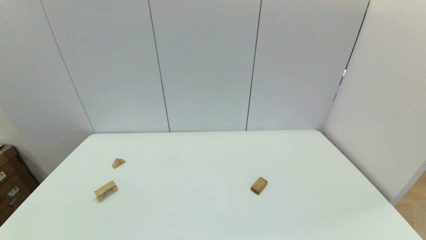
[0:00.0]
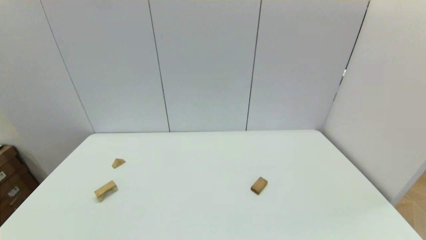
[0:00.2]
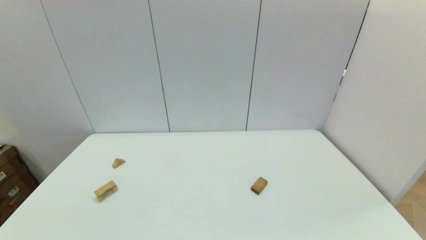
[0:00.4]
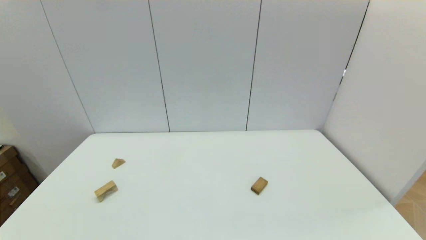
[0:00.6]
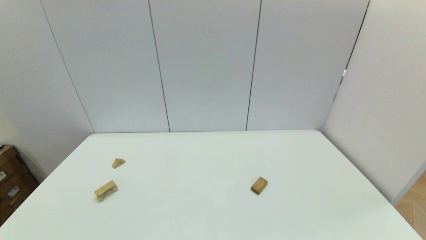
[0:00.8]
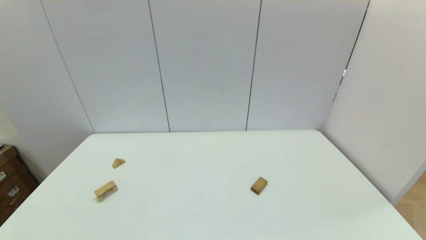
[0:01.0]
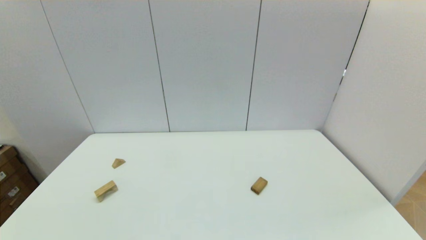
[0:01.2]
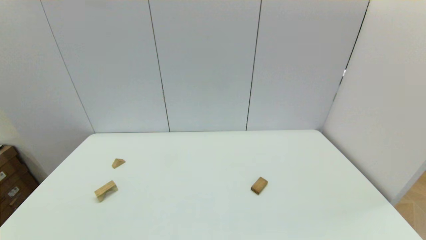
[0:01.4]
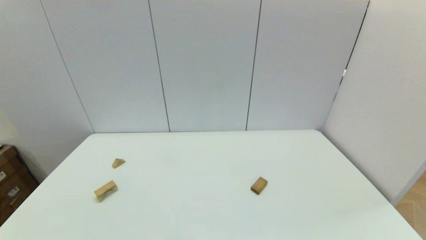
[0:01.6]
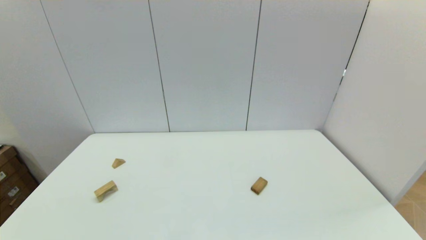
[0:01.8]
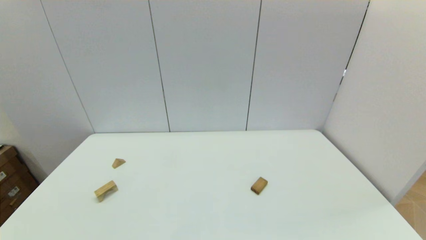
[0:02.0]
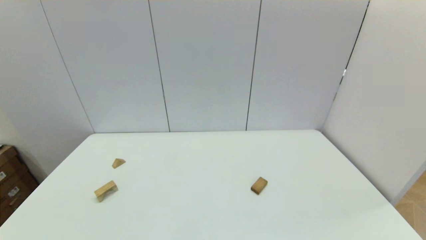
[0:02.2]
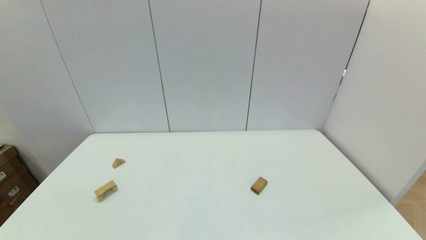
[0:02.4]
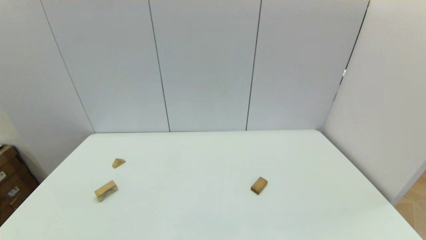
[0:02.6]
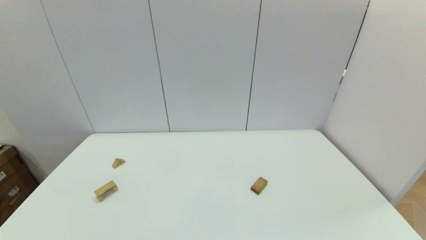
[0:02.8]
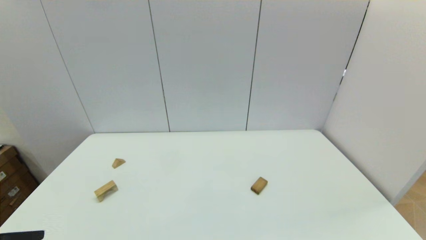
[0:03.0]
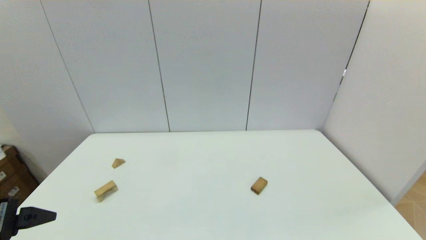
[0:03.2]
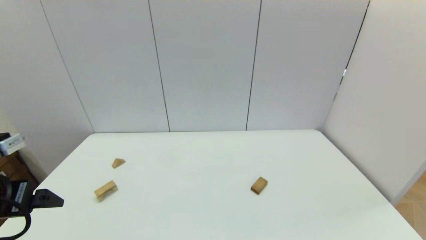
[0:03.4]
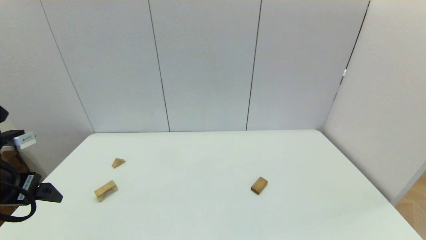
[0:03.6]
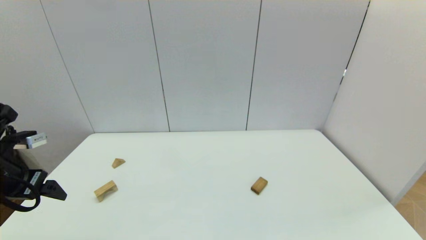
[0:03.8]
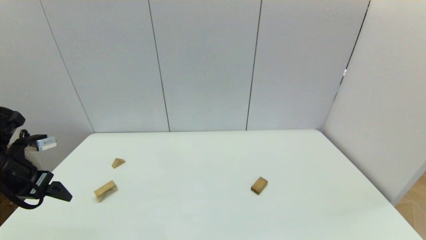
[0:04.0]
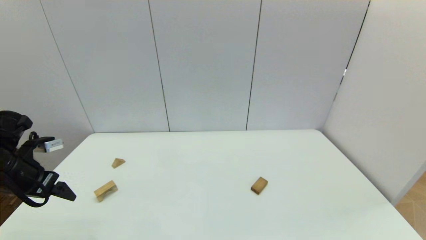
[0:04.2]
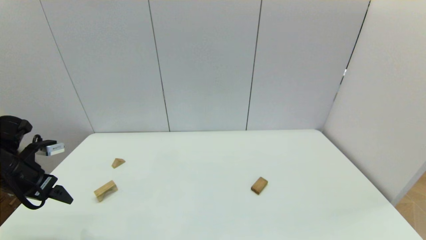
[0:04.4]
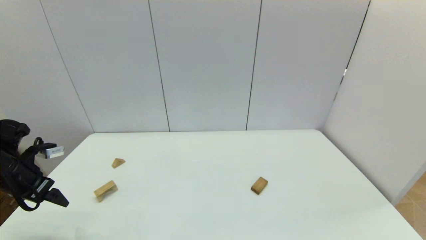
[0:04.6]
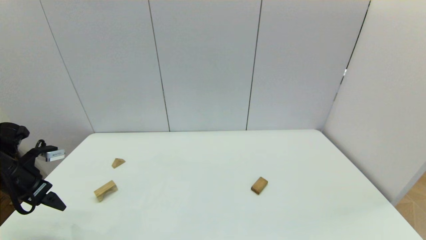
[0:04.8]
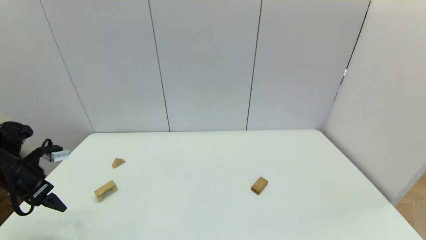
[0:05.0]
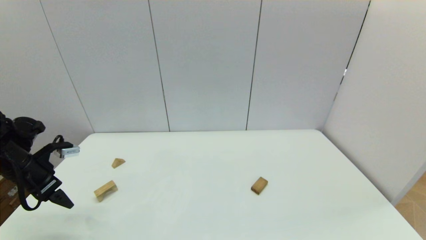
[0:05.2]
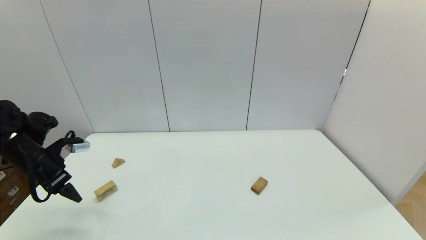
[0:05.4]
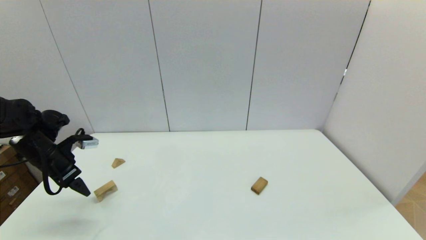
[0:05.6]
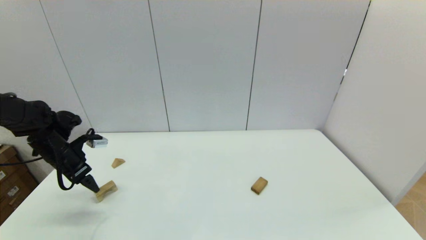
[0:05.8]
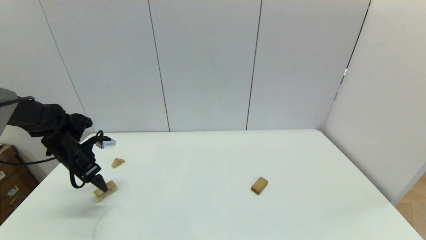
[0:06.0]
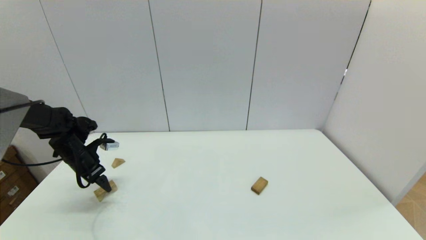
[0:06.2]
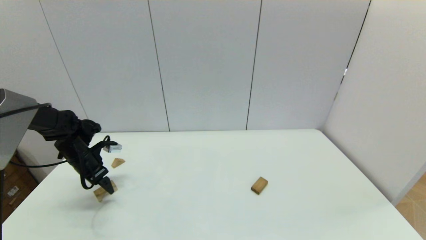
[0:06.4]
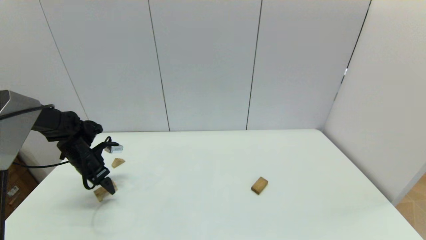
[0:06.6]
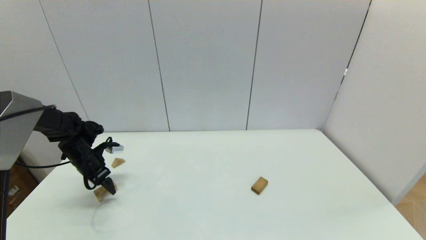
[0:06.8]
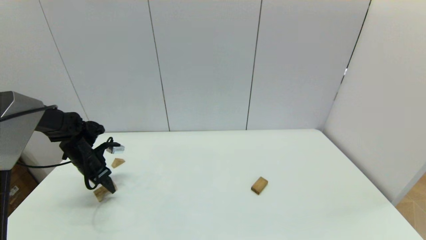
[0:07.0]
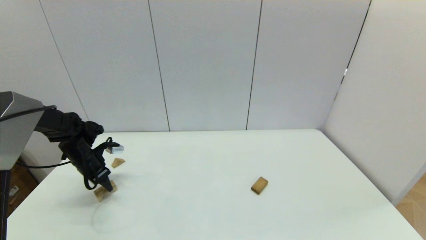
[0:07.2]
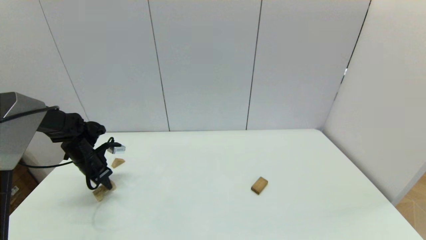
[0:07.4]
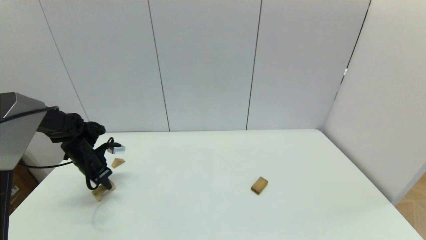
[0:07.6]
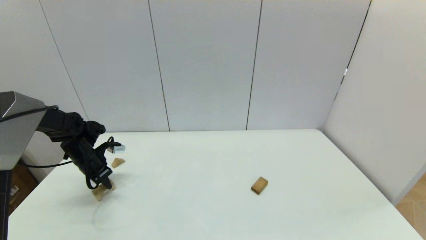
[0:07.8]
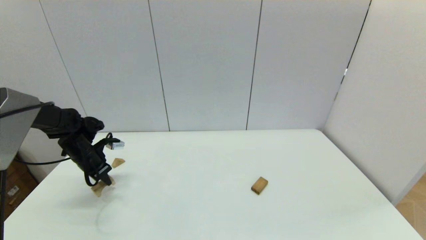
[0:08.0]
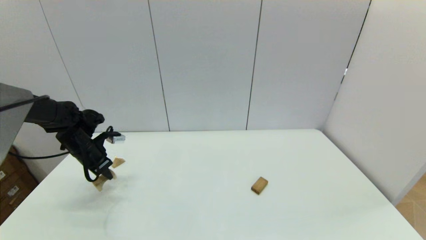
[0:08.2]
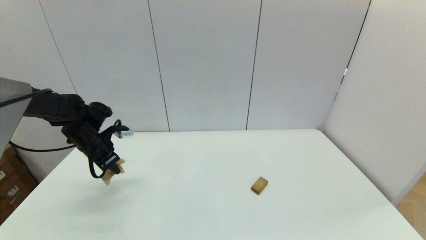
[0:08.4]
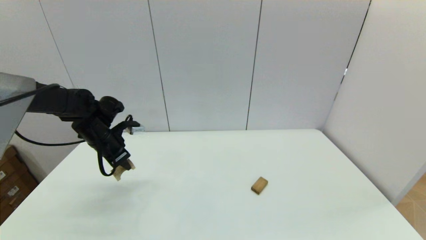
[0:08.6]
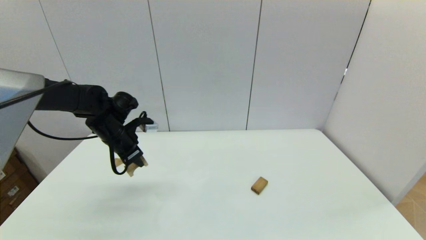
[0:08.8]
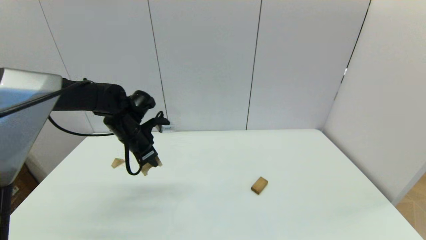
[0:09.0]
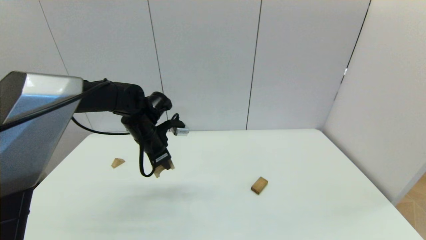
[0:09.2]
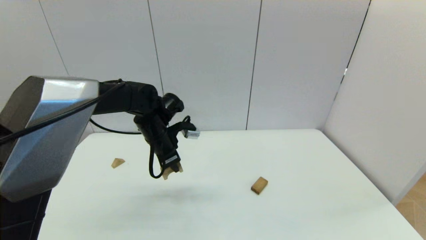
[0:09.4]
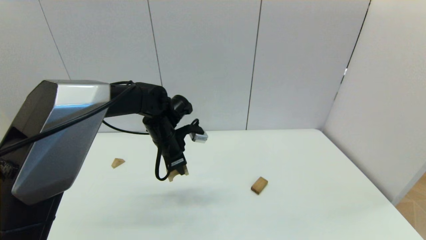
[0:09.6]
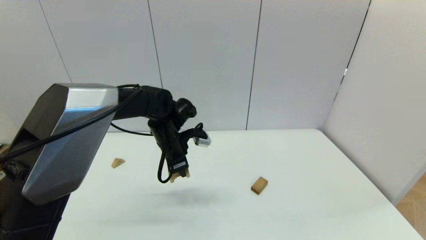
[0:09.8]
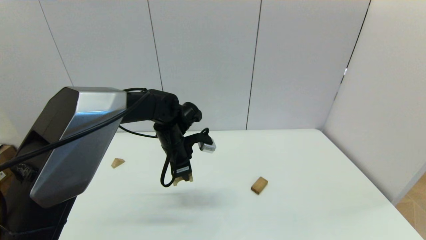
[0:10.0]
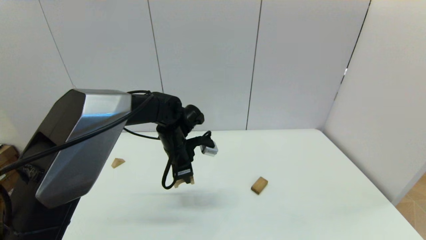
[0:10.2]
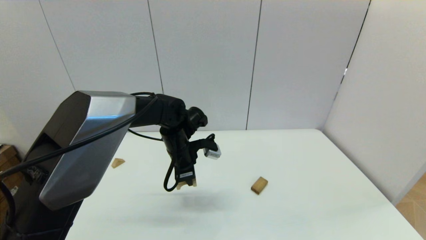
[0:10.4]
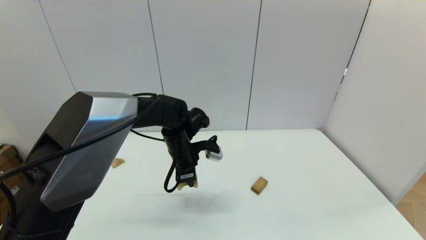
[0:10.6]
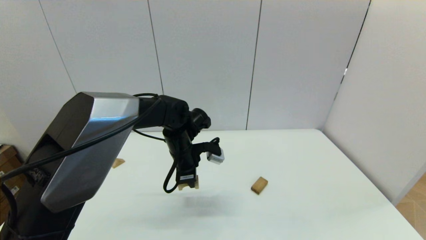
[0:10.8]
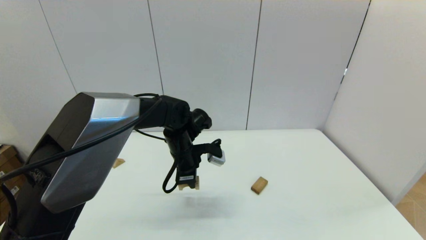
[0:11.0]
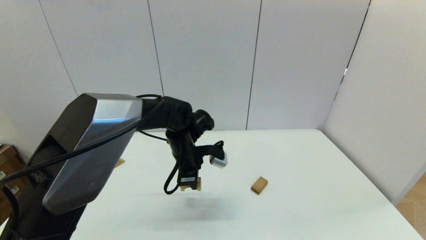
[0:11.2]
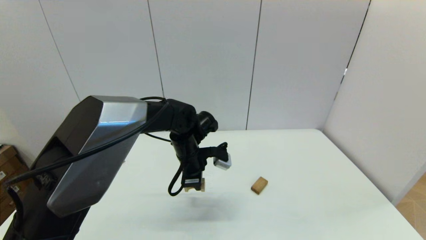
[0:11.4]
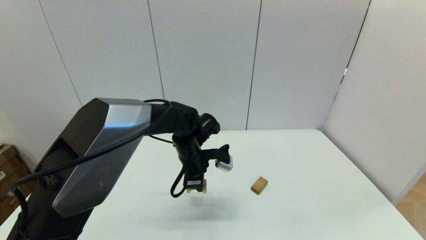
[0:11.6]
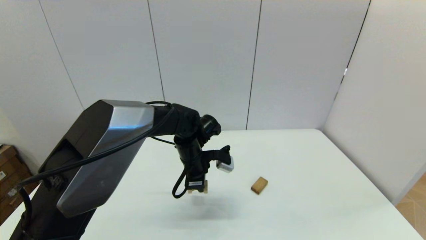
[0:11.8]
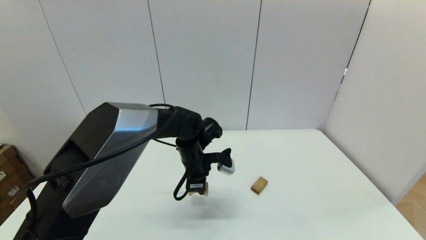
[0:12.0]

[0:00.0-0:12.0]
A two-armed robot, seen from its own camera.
Task of the whole recording: place the arched building blocks in the center of the table, set up the rectangular building blocks, and then set up the triangular building blocks.
Step, 0:03.0 to 0:07.2: Grasp the arch-shaped block with the left gripper.
0:03.0 to 0:04.4: The left gripper is displaced forward, to the left and downward by approximately 20 cm.
0:04.4 to 0:06.0: The left gripper goes about 15 cm forward and downward.
0:06.0 to 0:07.6: The left gripper closes.
0:07.6 to 0:09.0: The left gripper is displaced to the right and upward by roughly 20 cm.
0:09.0 to 0:10.4: The left gripper heads to the right, covering approximately 10 cm.
0:10.4 to 0:12.0: The grippers make only small movements.

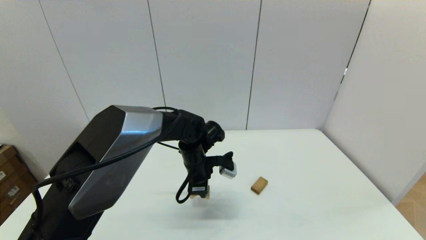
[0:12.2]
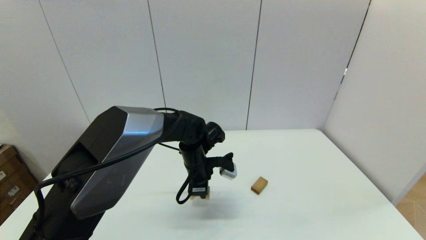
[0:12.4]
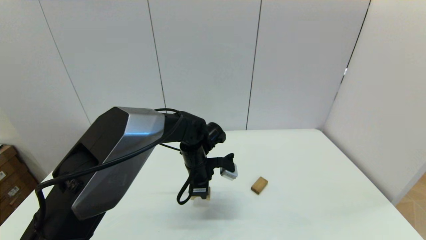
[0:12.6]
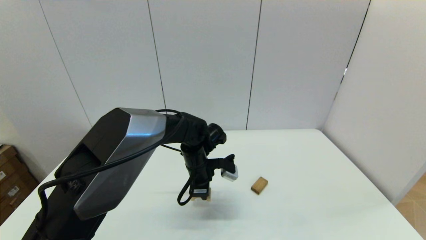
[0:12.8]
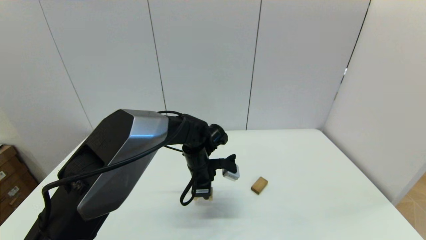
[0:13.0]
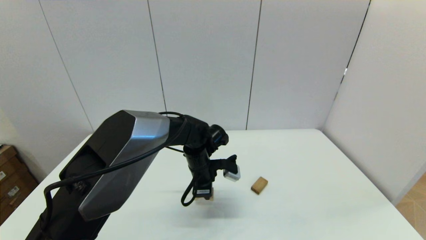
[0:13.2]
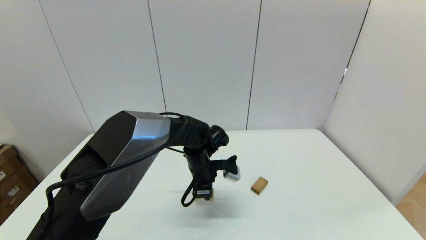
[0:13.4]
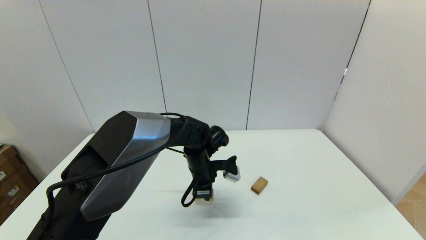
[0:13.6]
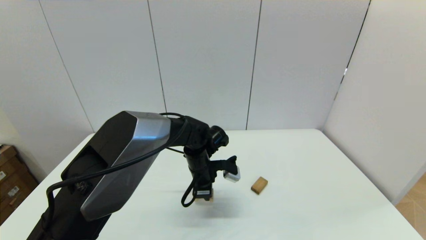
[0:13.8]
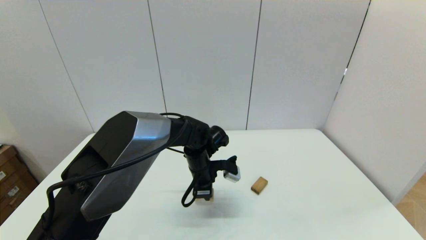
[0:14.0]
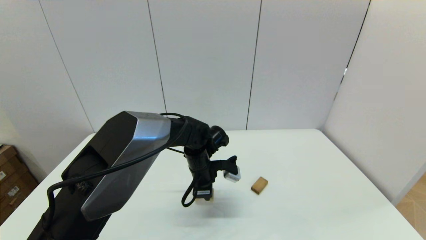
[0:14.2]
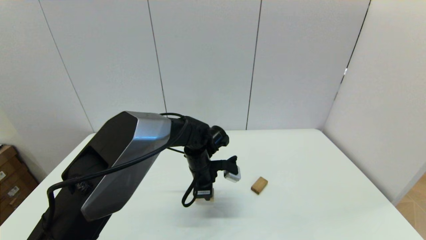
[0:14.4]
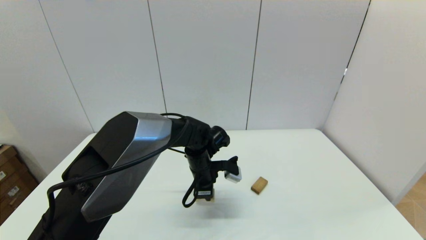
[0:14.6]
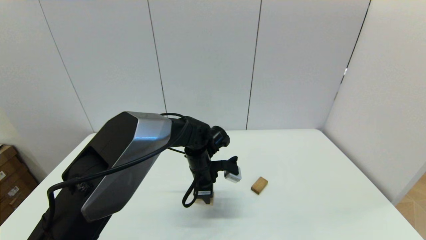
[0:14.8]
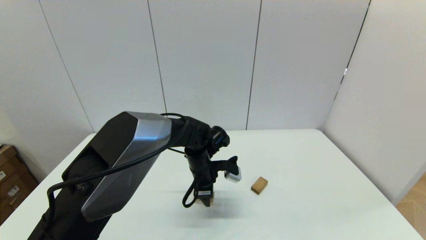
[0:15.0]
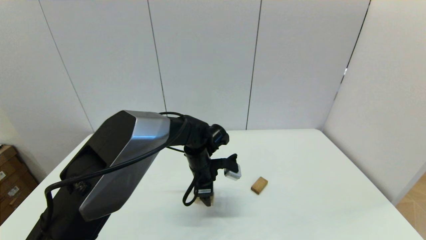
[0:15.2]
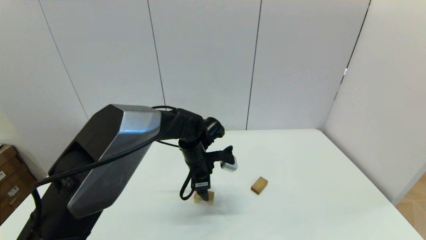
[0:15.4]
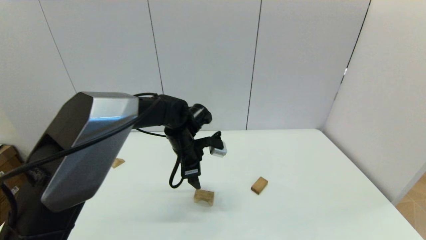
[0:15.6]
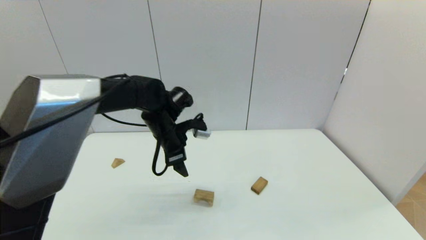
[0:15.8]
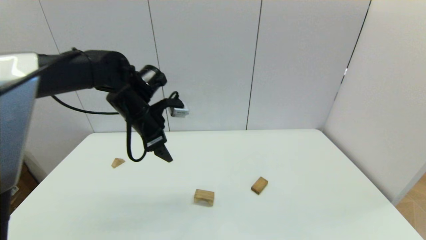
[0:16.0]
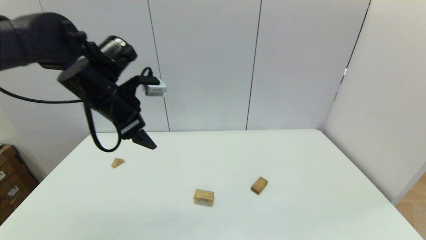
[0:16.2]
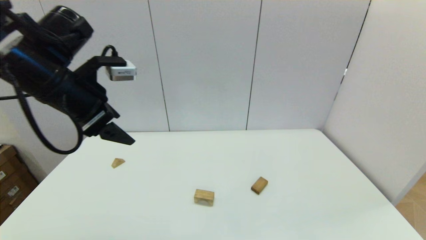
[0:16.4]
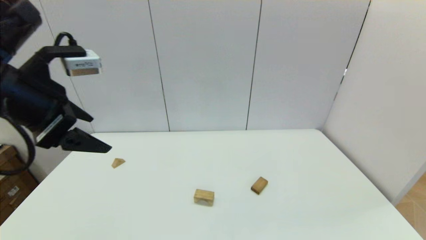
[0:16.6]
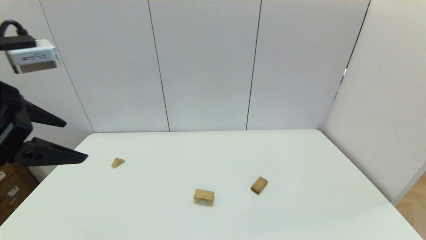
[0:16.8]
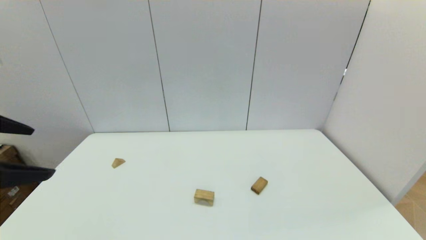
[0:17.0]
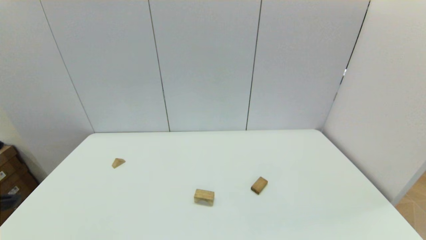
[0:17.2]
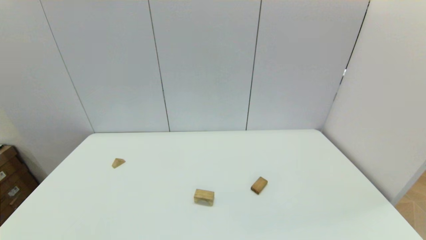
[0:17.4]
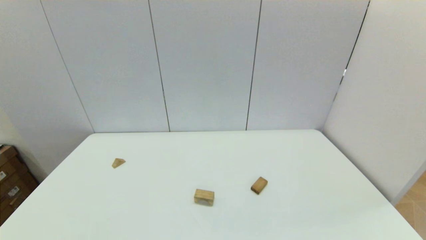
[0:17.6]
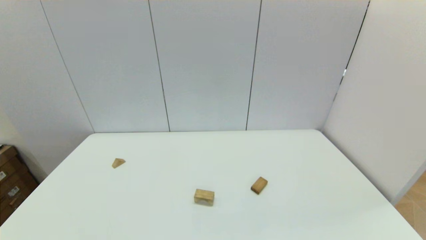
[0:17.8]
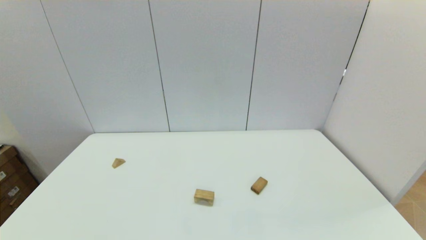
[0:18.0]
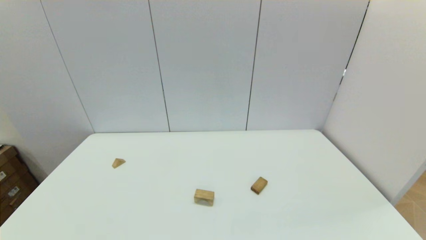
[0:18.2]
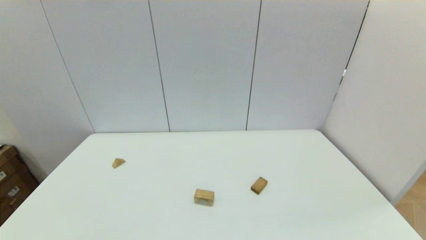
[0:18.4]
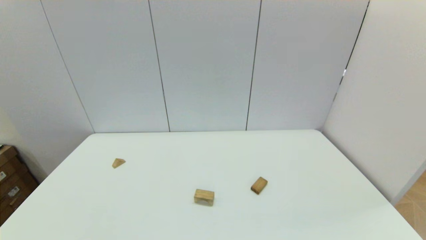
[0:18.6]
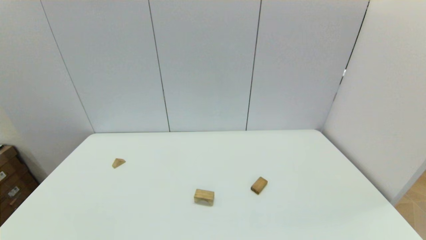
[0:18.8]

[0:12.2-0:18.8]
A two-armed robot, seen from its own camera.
Task of the whole recording: place the arched building blocks in the center of the table, set up the rectangular building blocks, and then set up the triangular building blocks.
Step, 0:12.2 to 0:15.2: Place the arch-shaped block in the center of view with the left gripper.
0:12.2 to 0:13.8: There are only small adjustments of the grippers.
0:13.8 to 0:15.4: The left gripper opens.
0:15.4 to 0:17.2: The left gripper moves backward, upward and to the left, roughly 50 cm.
